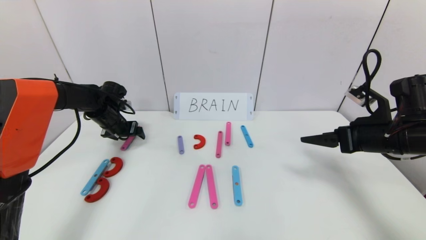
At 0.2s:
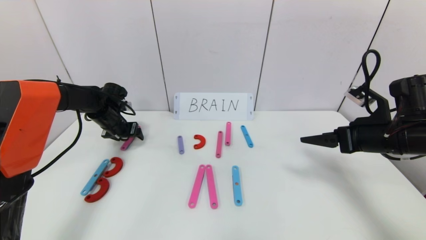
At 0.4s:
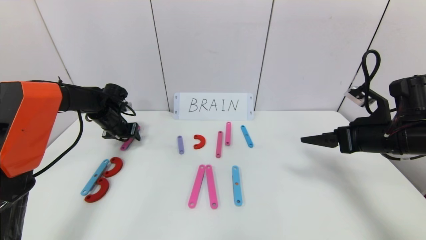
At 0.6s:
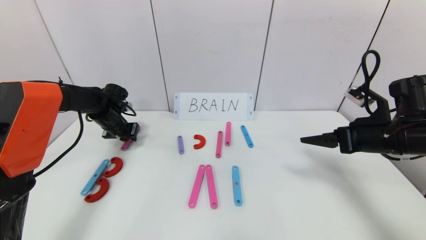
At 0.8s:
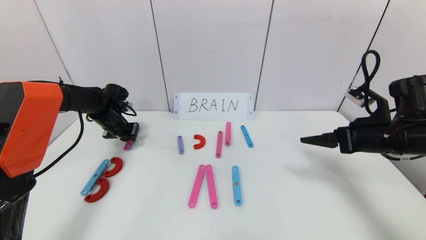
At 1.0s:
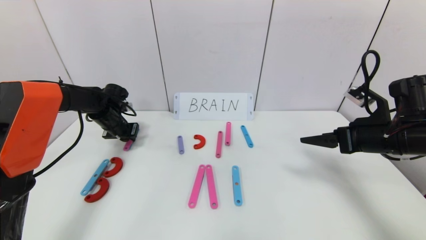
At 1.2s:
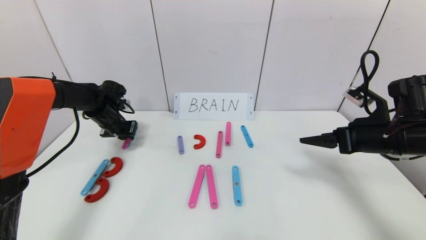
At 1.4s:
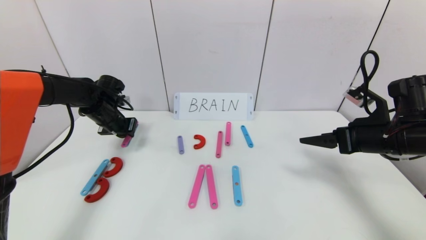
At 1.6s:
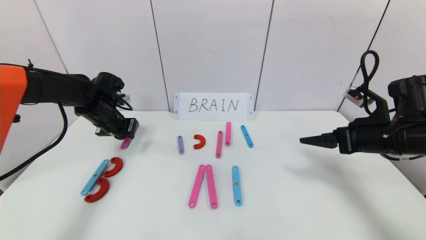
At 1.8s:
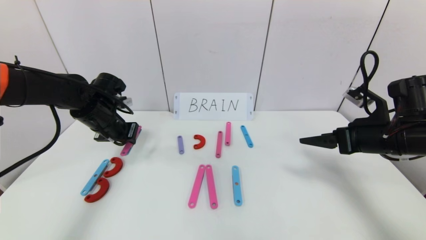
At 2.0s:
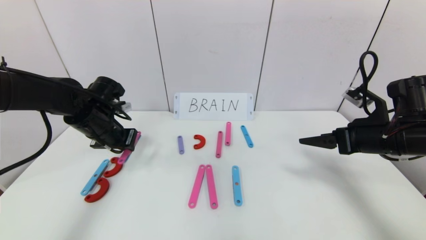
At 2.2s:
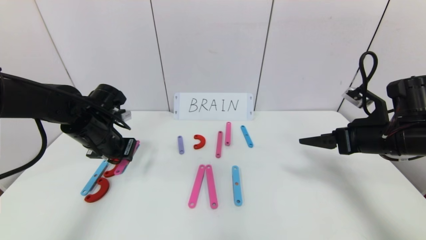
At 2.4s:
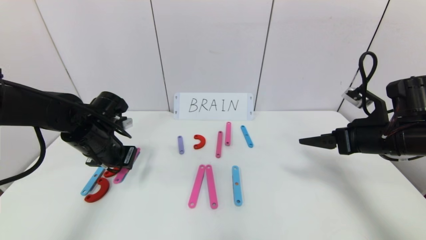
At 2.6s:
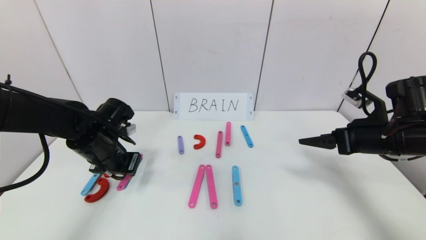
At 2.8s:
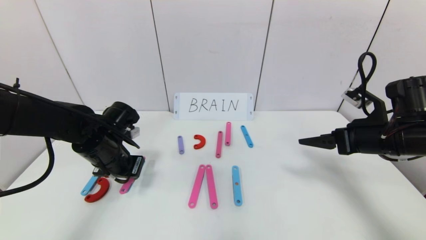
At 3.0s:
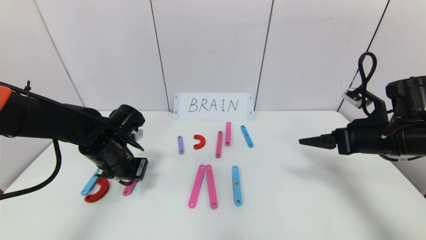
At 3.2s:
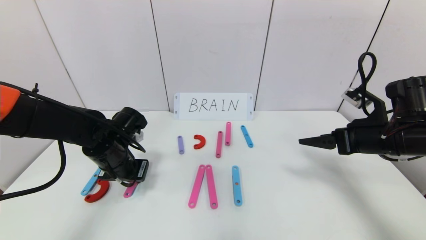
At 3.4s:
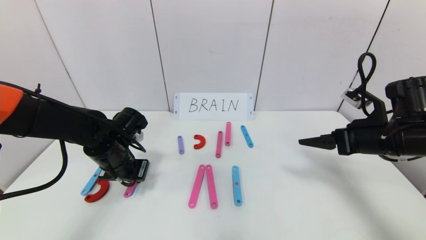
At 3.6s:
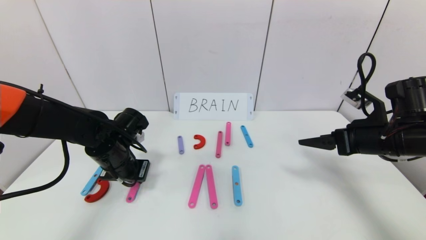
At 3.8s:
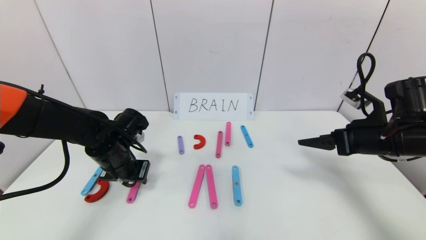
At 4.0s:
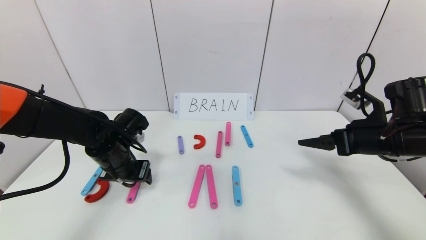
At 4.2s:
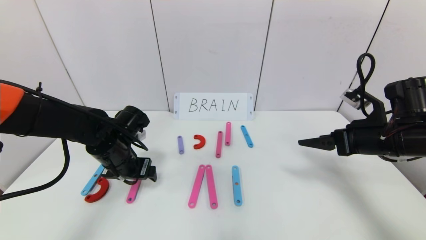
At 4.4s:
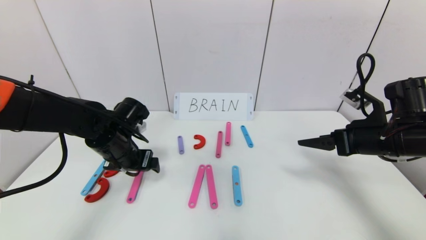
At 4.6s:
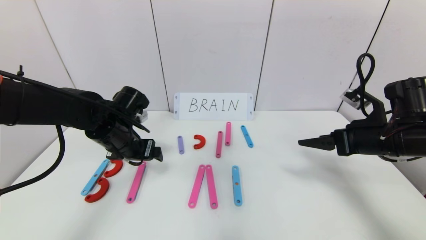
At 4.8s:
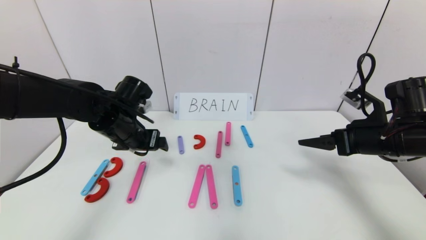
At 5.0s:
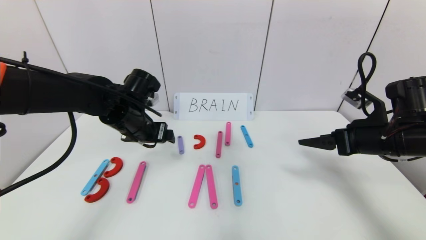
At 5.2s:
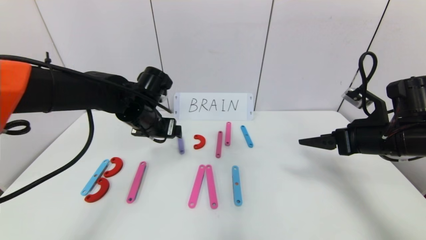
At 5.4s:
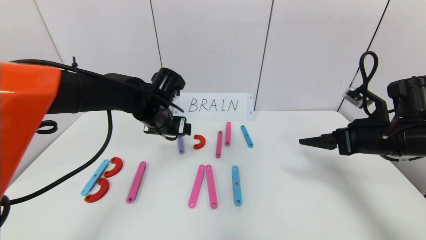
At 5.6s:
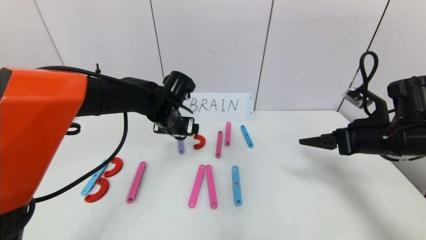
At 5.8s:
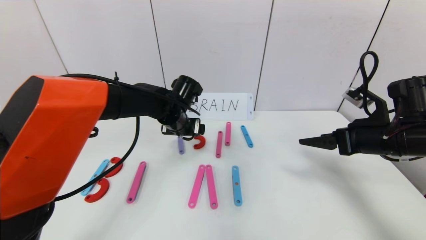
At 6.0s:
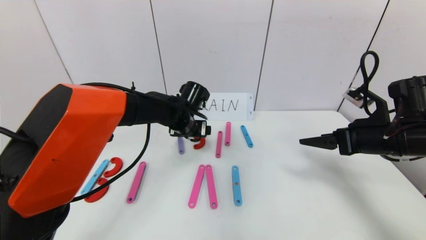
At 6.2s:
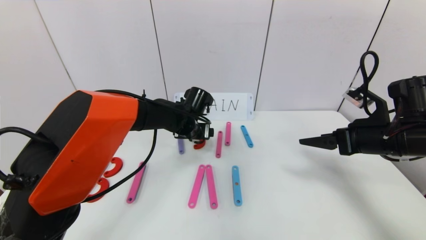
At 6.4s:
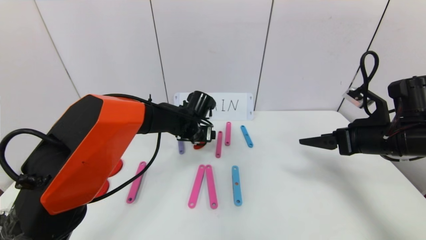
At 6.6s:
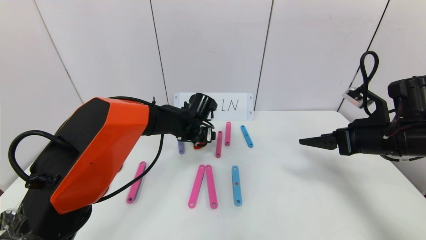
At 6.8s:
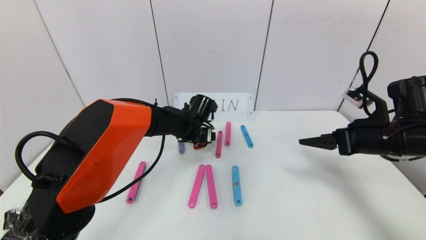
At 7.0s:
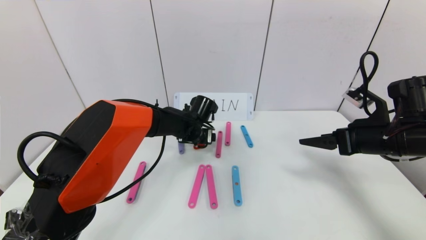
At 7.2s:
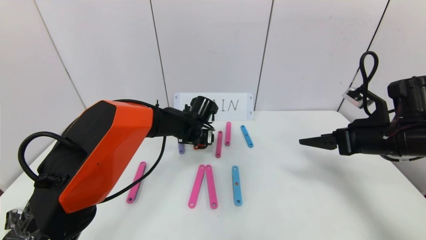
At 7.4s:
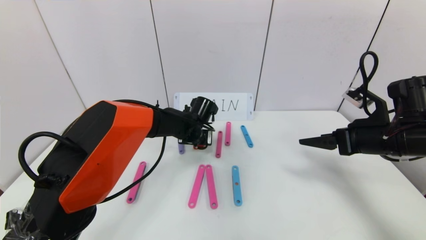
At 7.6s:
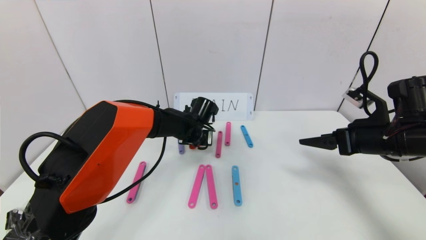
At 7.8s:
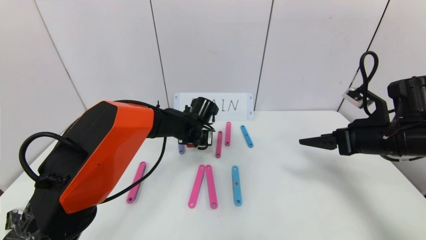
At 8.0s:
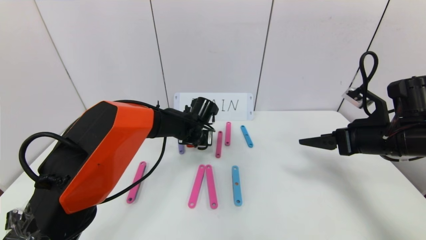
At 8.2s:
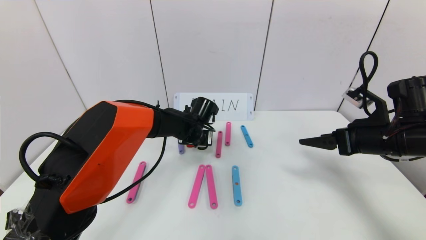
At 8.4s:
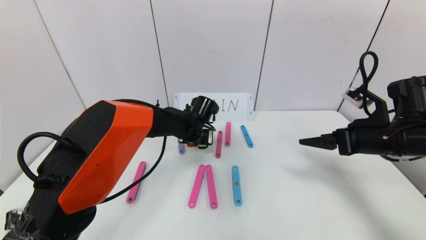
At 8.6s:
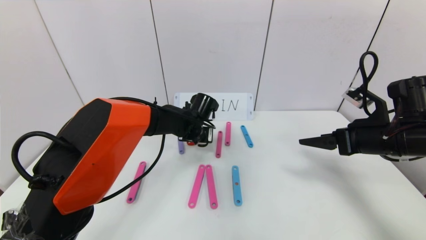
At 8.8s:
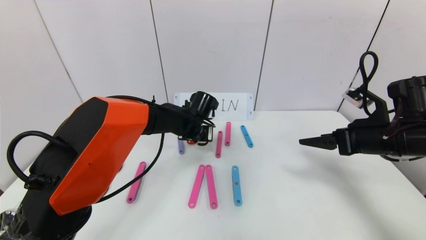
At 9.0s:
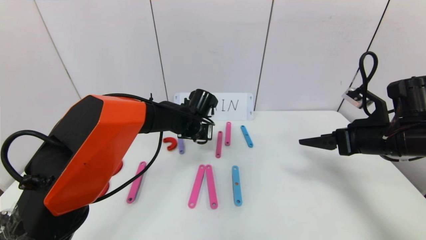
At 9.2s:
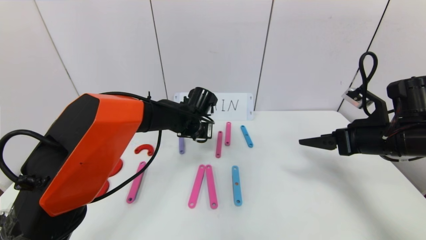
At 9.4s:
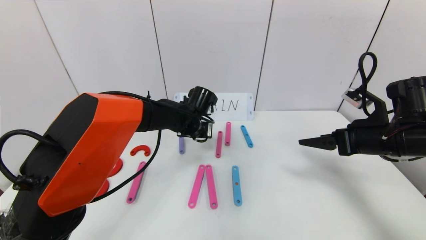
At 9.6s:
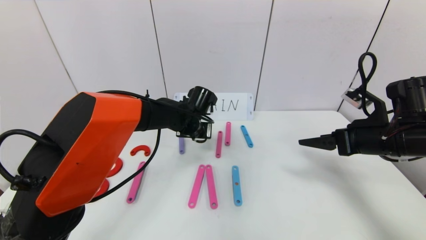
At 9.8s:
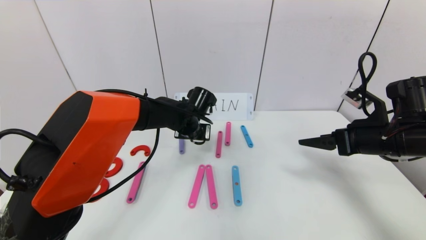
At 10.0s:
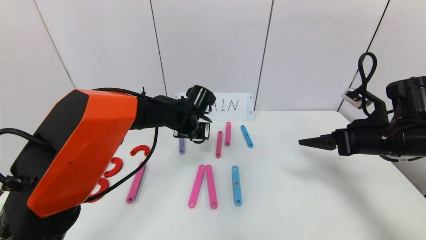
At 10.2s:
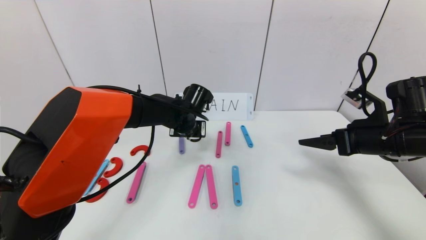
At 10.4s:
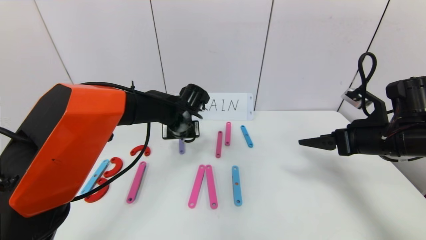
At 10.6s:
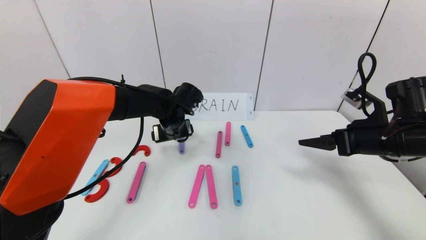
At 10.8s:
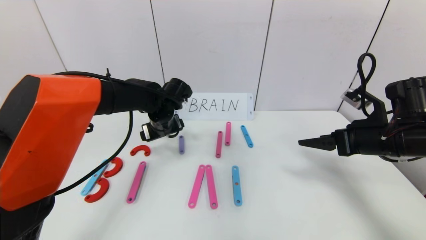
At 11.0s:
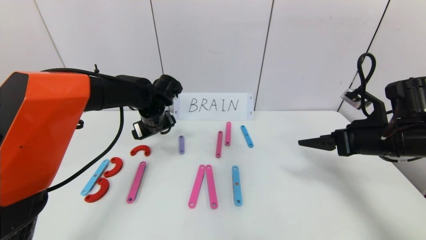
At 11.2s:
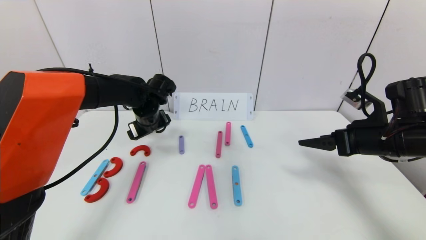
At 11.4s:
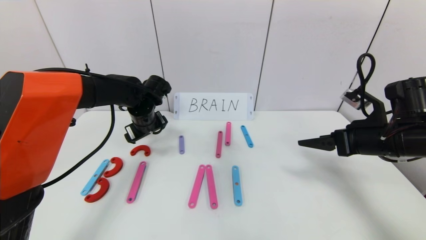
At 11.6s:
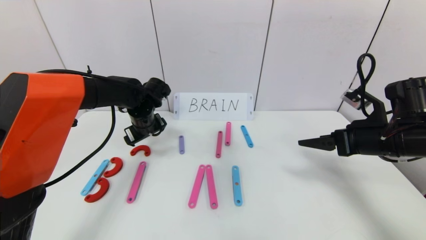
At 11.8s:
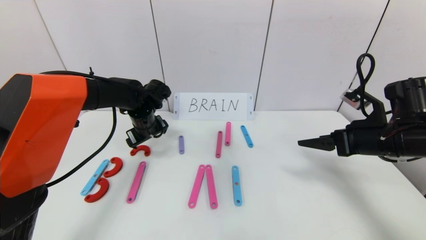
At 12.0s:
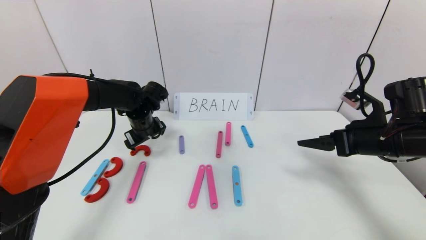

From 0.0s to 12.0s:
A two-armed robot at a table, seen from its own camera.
Task of the whole recording: rearrange the word baai as brain.
From 0.0s to 1.6s: The left gripper heads backward, covering approximately 5 cm, and closes.
From 1.6s to 3.0s: The left gripper travels backward and to the right by some 10 cm.
From 3.0s to 4.4s: The left gripper opens.
From 4.4s to 6.0s: The left gripper shifts approximately 15 cm to the right and forward.
From 6.0s to 7.6s: The left gripper ends up about 5 cm from where it was, and closes up.
From 7.6s to 9.0s: There are only small adjustments of the grippers.
From 9.0s to 10.4s: The left gripper opens up.
From 10.4s to 12.0s: The left gripper is displaced to the left by roughly 10 cm.

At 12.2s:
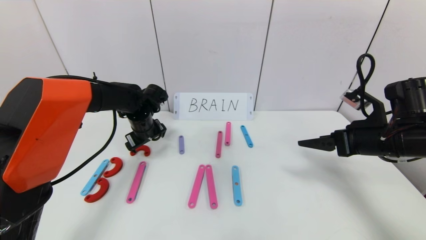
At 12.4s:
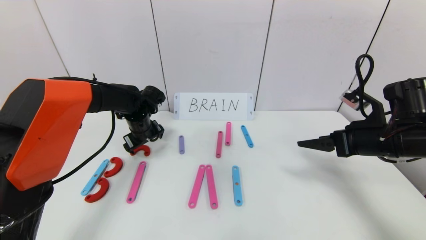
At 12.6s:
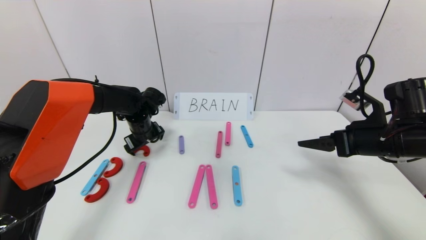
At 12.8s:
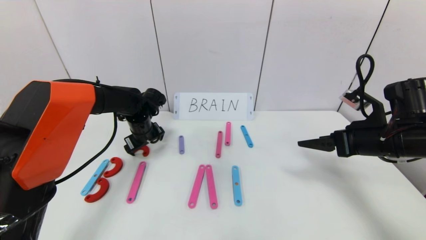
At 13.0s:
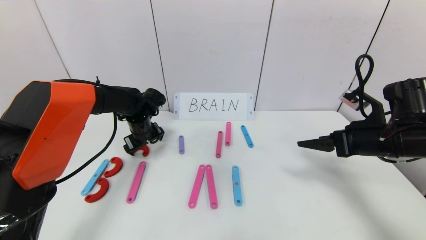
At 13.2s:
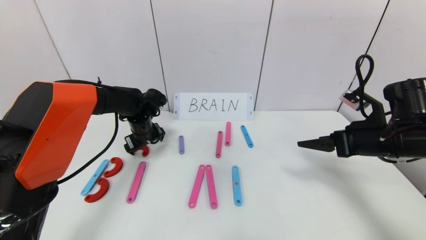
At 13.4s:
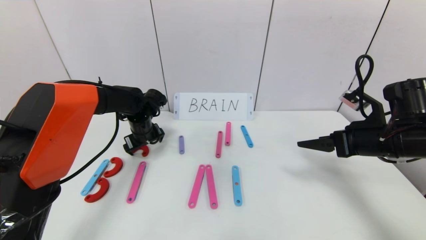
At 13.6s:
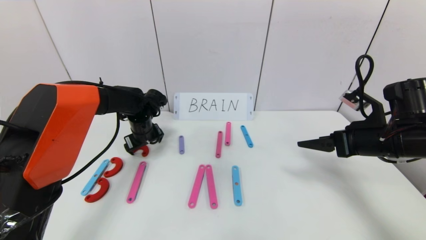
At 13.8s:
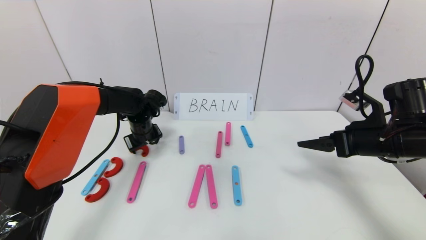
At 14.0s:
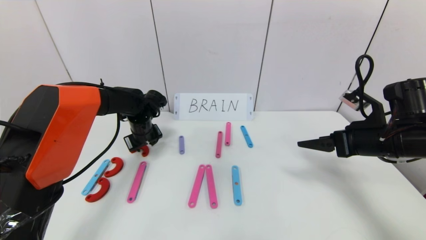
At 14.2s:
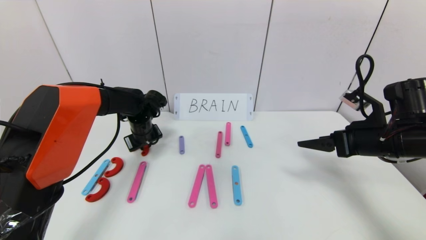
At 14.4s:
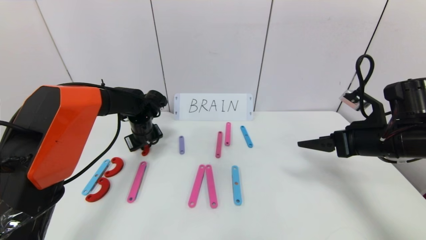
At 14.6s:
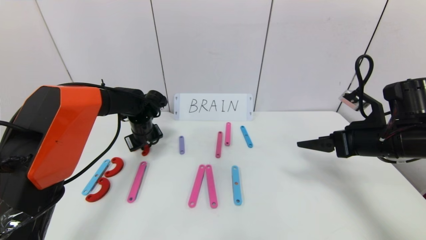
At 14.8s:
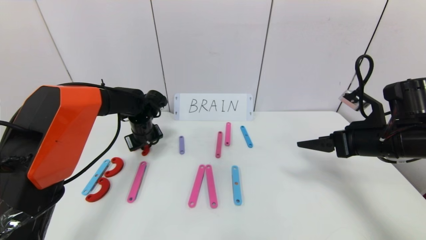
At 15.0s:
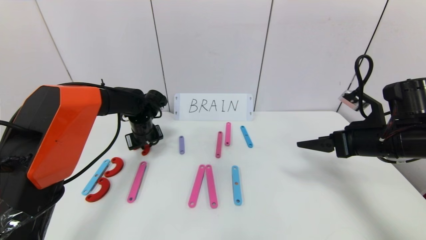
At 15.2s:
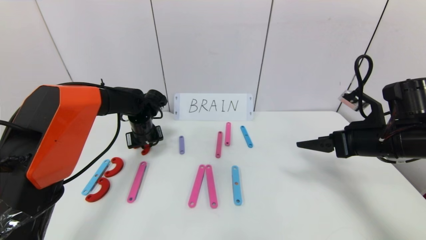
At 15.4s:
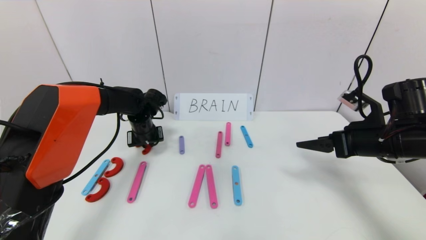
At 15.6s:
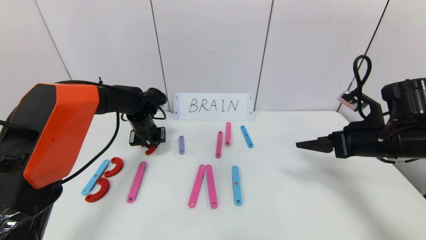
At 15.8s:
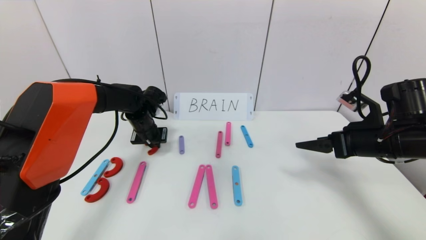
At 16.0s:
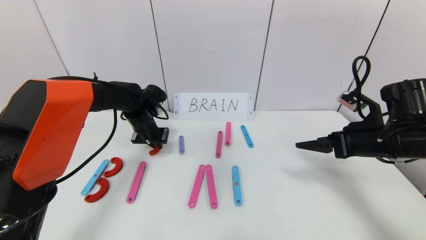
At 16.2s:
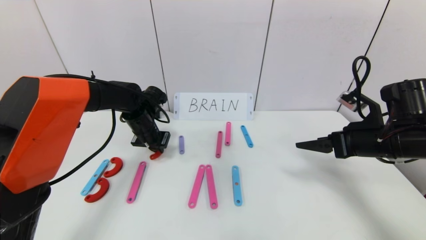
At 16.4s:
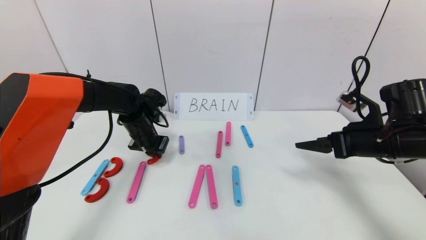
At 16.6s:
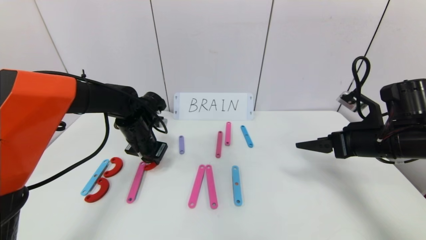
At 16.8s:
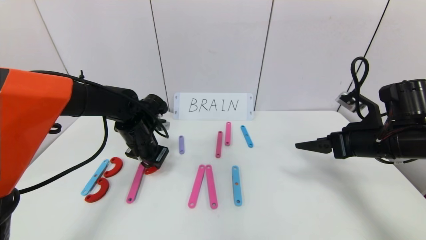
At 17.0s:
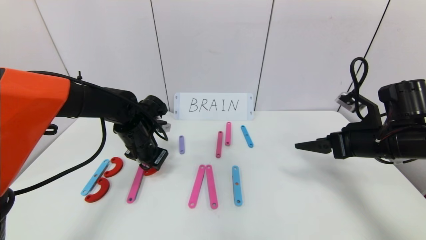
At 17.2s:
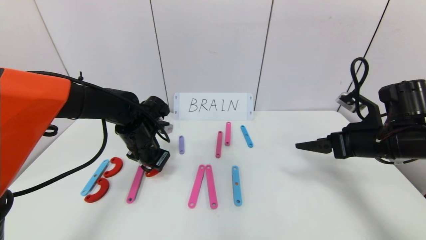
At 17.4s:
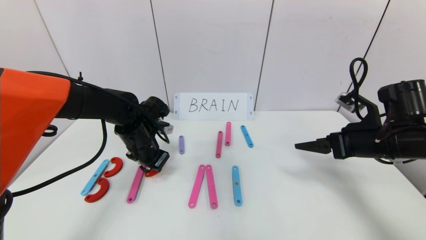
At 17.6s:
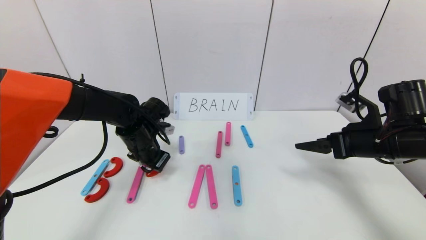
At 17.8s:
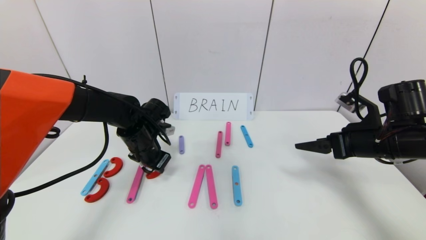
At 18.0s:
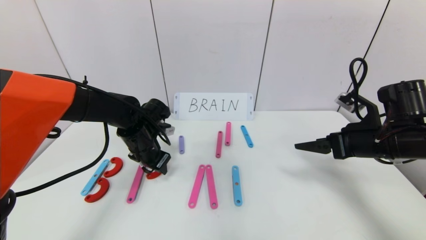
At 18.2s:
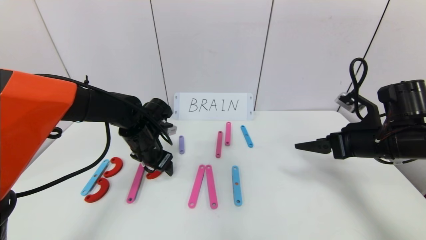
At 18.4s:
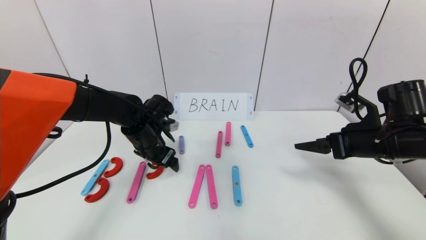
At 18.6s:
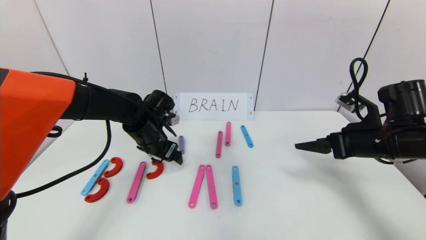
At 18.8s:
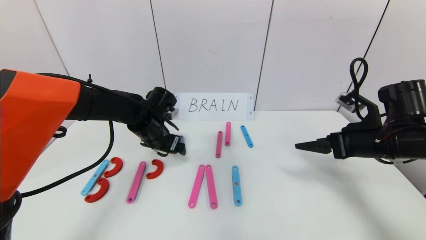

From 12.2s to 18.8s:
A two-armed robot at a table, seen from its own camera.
Task of the whole recording: rearrange the word baai as brain.
From 12.2s to 13.8s: The grippers make only small movements.
From 13.8s to 15.4s: The left gripper closes.
From 15.4s to 17.2s: The left gripper moves backward, roughly 10 cm.
From 17.2s to 18.8s: The left gripper opens its fingers.
